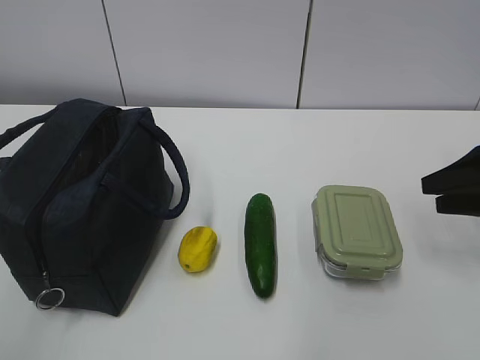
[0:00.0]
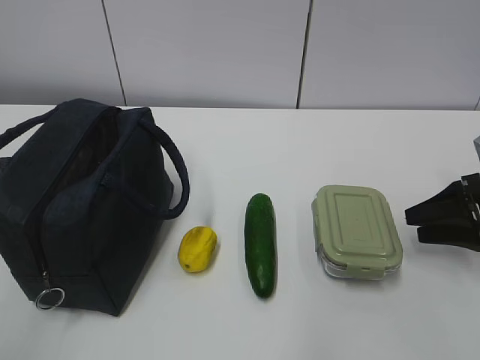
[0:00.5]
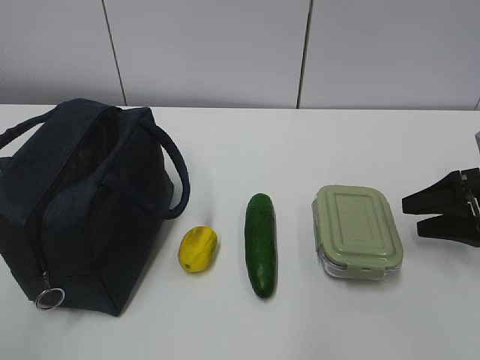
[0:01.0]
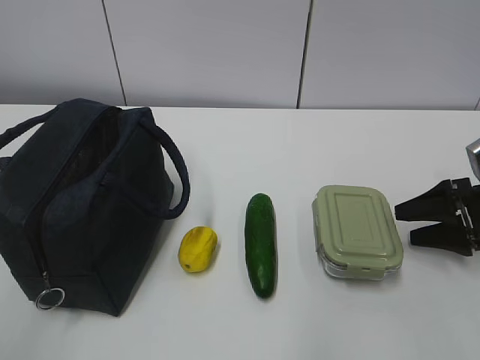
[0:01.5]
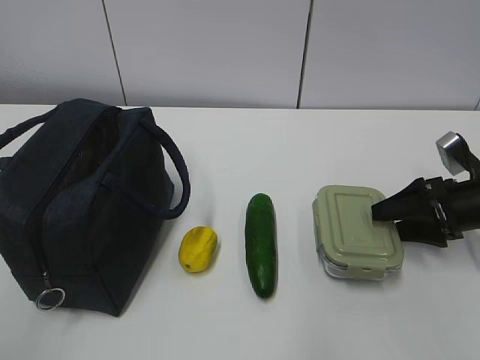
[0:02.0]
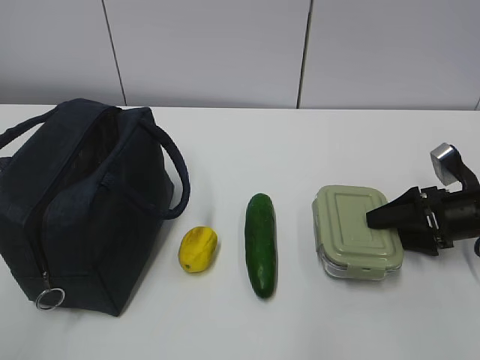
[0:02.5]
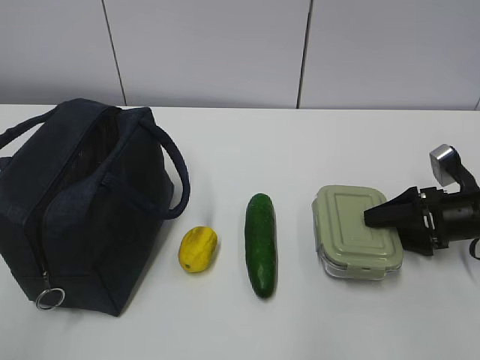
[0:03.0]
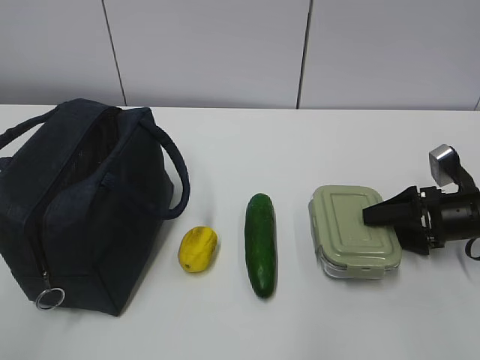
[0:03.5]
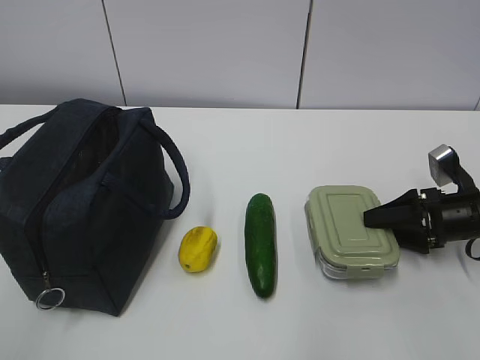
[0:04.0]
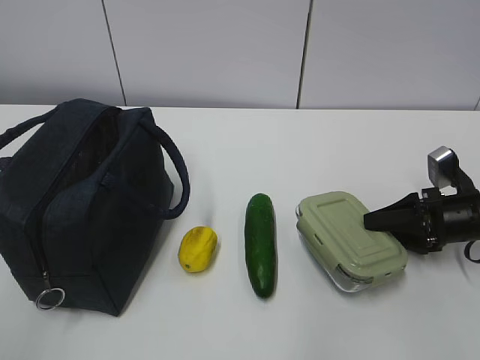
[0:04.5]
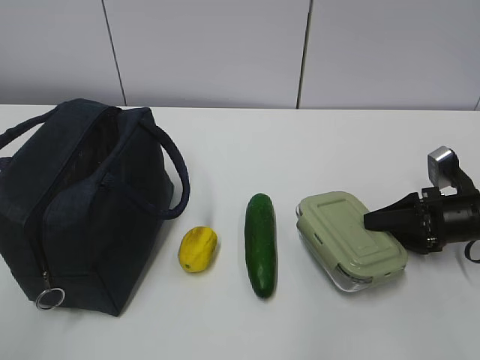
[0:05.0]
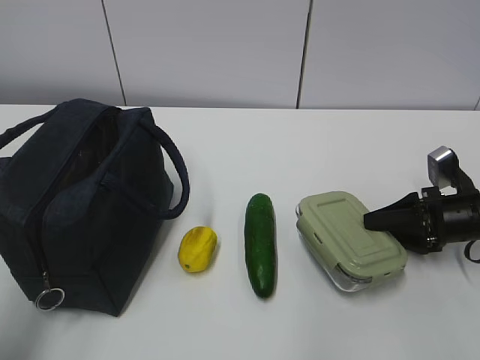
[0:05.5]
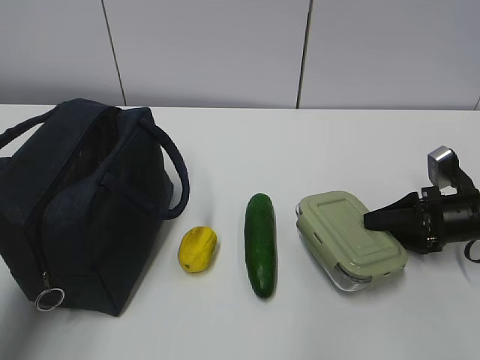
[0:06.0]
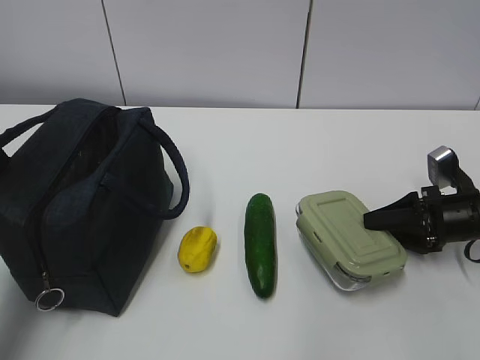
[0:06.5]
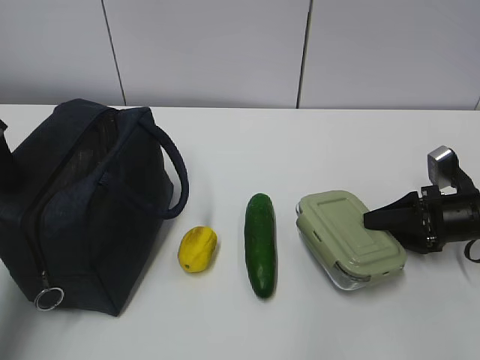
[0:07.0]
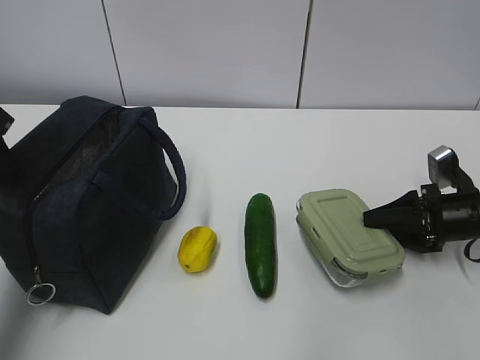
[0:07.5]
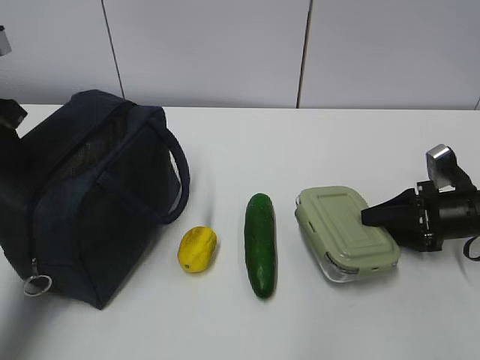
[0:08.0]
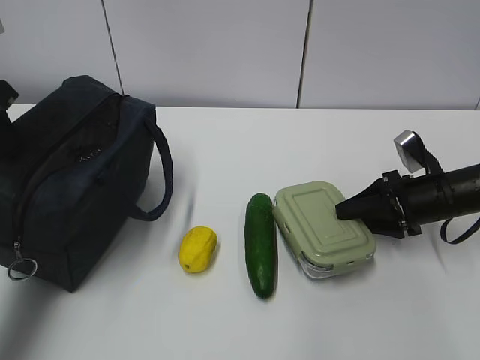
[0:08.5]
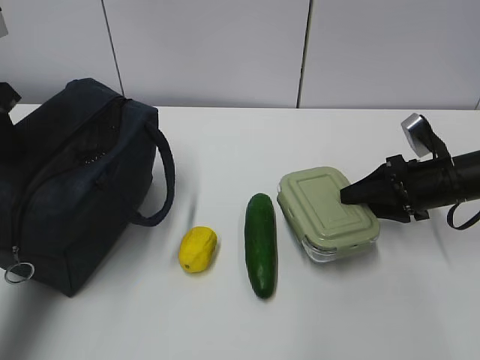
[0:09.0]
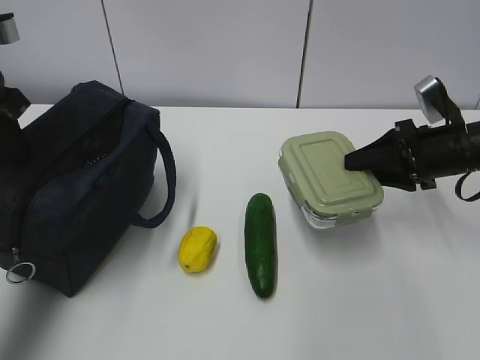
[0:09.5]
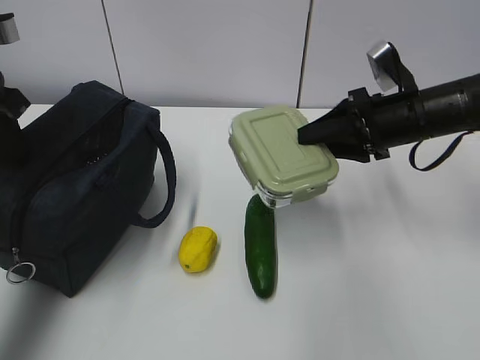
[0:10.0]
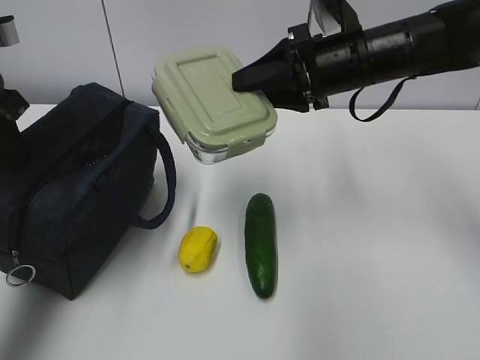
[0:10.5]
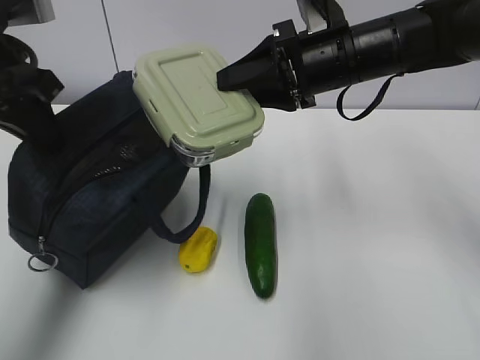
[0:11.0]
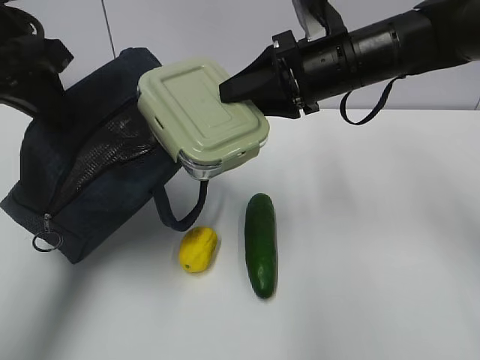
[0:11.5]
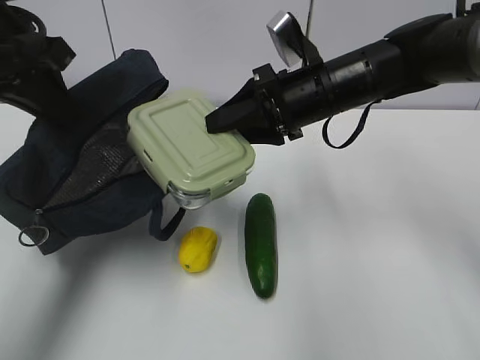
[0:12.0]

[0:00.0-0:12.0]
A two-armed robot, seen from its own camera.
Step, 0:00.0 to 0:06.0: Grab the lunch box with your right hand.
Step, 0:06.5 to 0:08.0: Grab the lunch bag with your left hand.
0:00.0 to 0:02.0: The right gripper heads downward, covering roughly 10 cm.
0:02.0 to 0:04.0: There are only small adjustments of the grippers.
0:04.0 to 0:06.0: The left gripper is displaced forward by about 20 cm.
0:06.0 to 0:08.0: The left gripper travels forward by some 10 cm, and closes.
0:08.0 to 0:10.0: The right gripper goes about 15 cm upward and to the left.
0:10.0 to 0:12.0: The right gripper moves to the left, some 10 cm. The left gripper moves to the right, some 5 cm.

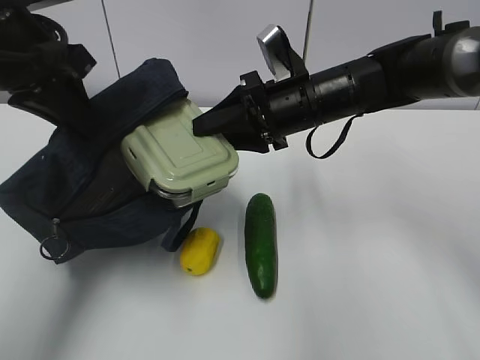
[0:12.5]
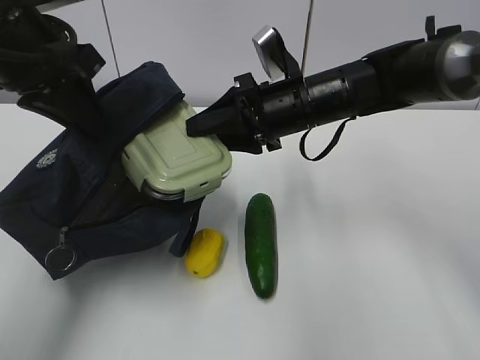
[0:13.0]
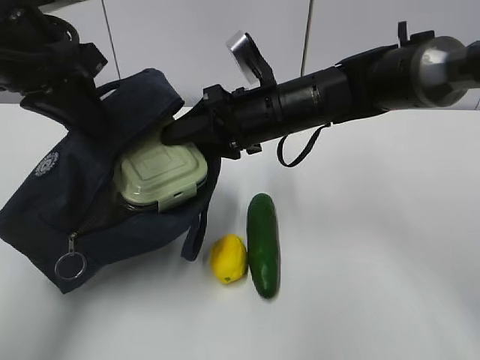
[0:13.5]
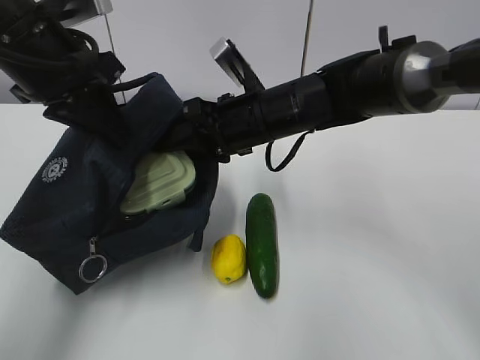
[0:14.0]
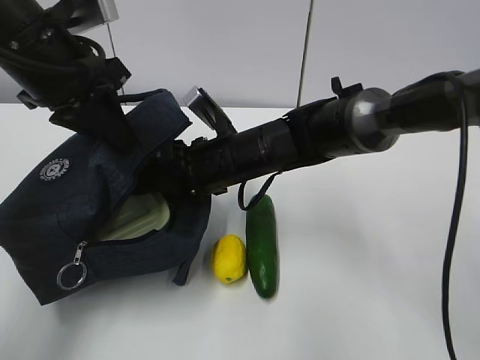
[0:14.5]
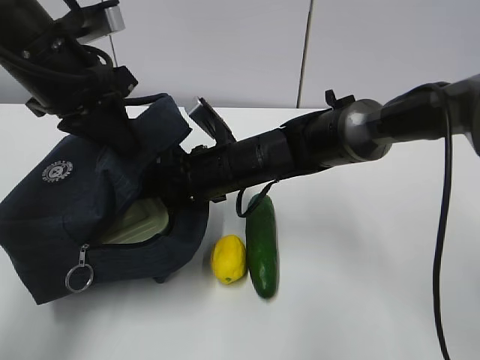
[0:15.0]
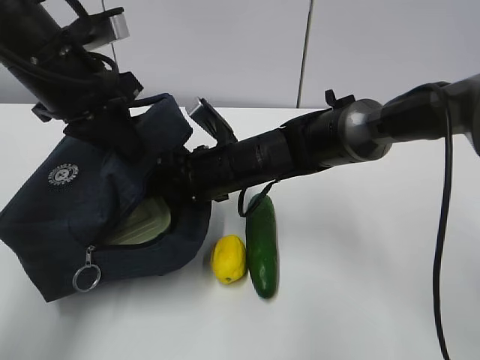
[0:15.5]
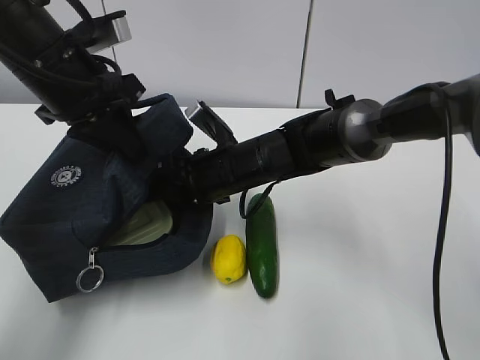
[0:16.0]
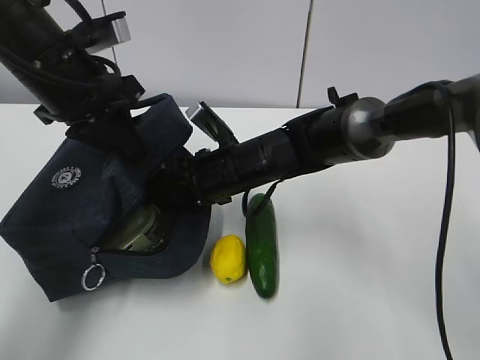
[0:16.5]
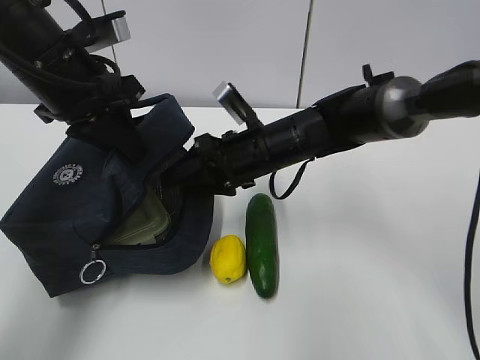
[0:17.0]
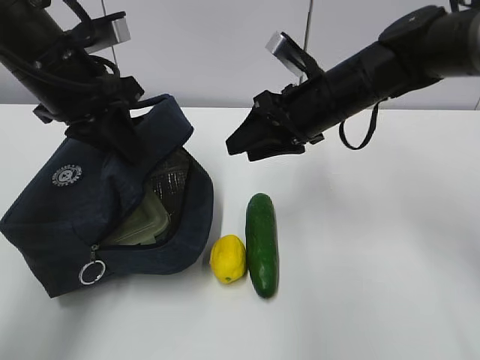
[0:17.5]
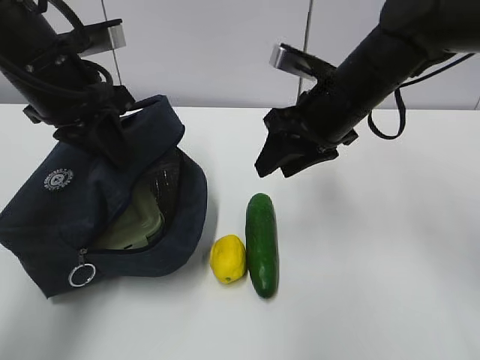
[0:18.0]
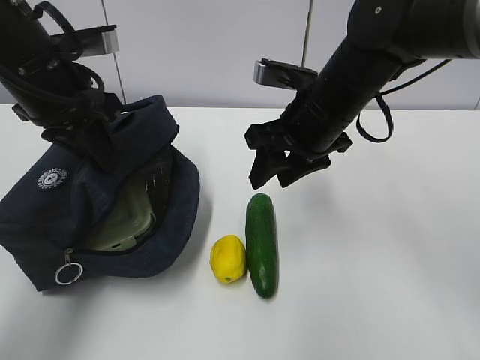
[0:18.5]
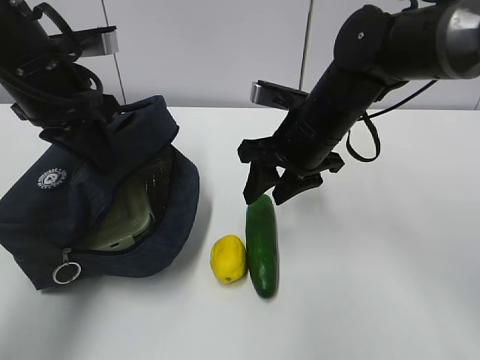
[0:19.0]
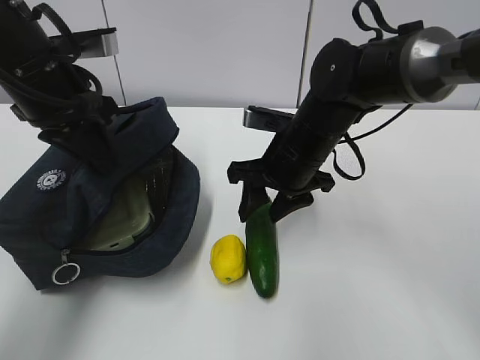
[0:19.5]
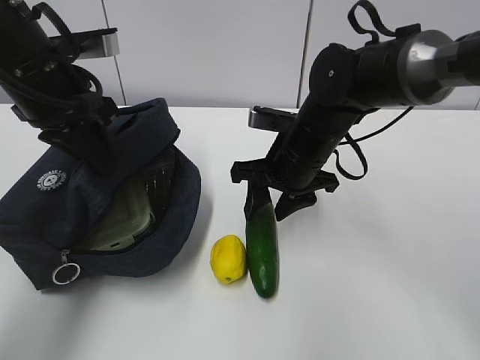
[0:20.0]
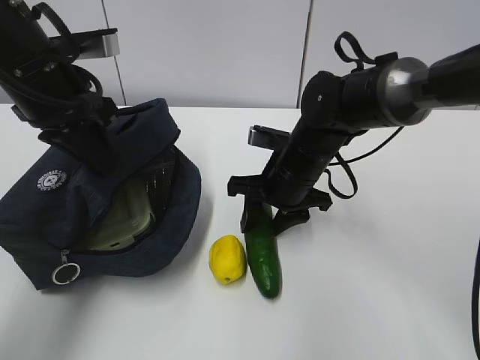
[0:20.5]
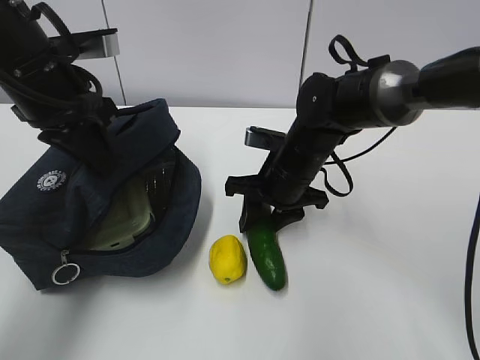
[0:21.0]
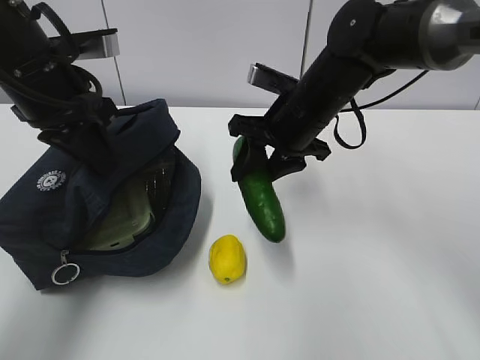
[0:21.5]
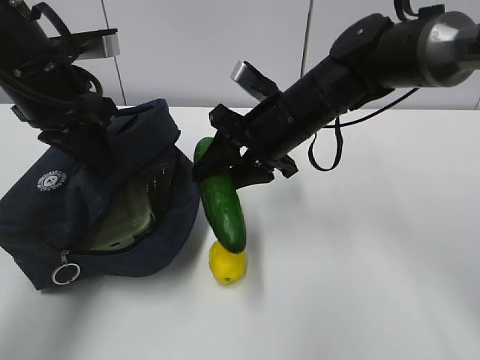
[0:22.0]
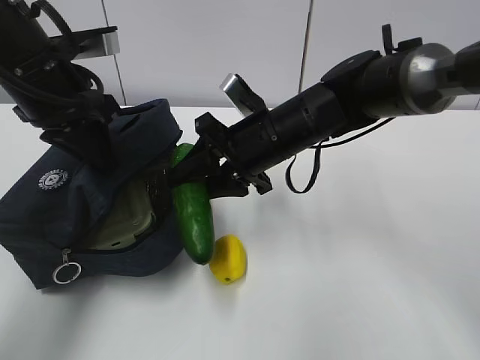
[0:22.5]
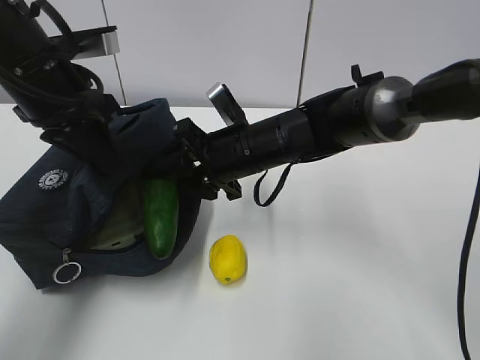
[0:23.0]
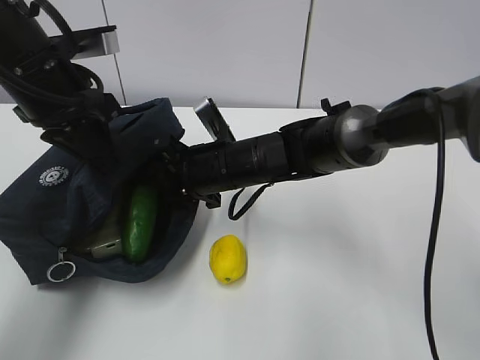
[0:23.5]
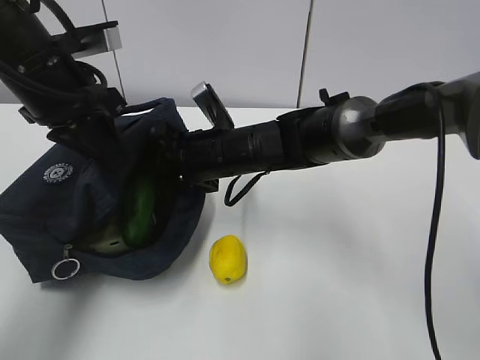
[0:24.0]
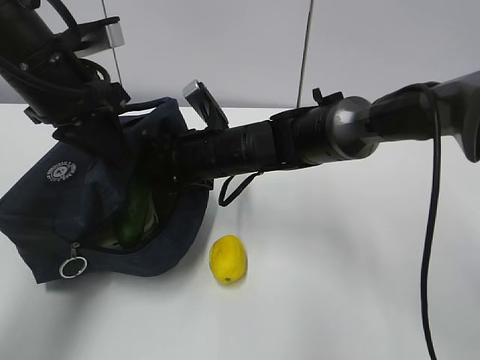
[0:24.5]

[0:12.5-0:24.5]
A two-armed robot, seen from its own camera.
Step, 0:13.5 to 0:16.5: Grab the cucumber with your right hand.
Step, 0:17.0 to 0:19.5: Place it into the bag with your right hand.
Step, 0:20.0 to 0:23.0: Grab the lemon with your right hand.
0:12.5 to 0:14.5: The right gripper travels to the left and downward by some 10 cm.
0:14.5 to 0:16.5: The grippers move only a little.
0:16.5 to 0:18.5: The right gripper goes roughly 15 cm to the right and upward.
0:18.5 to 0:20.5: The right gripper heads downward, covering roughly 10 cm.
0:20.5 to 0:22.5: The right gripper travels upward by roughly 5 cm.
0:22.5 to 0:24.5: The right gripper heads to the left, covering approximately 5 cm.

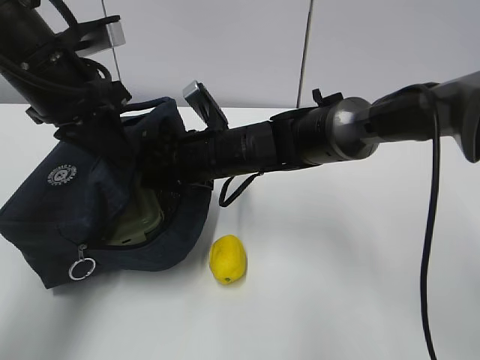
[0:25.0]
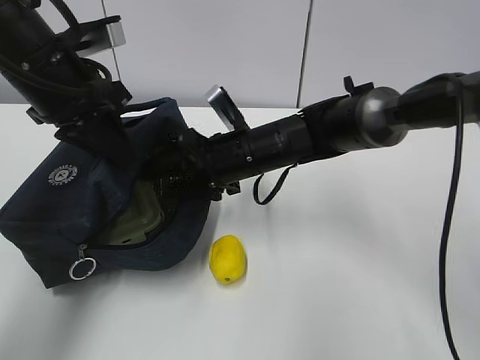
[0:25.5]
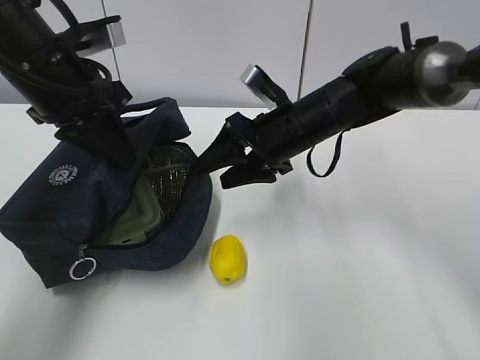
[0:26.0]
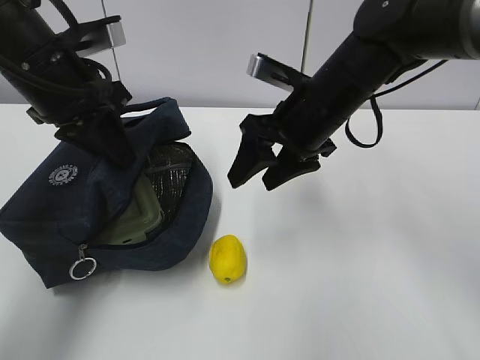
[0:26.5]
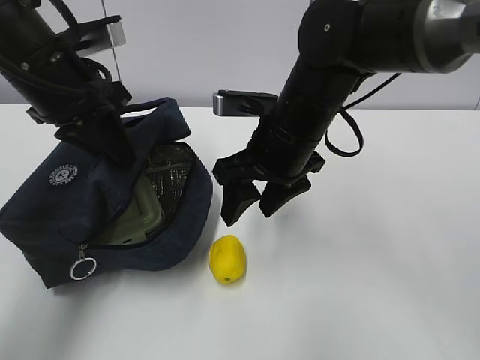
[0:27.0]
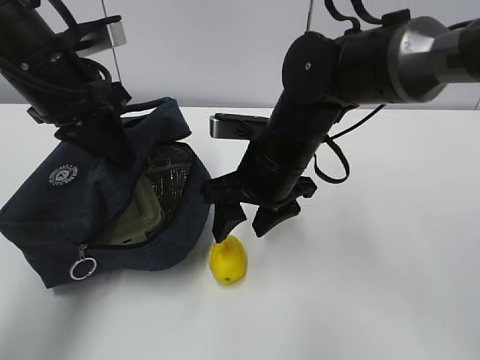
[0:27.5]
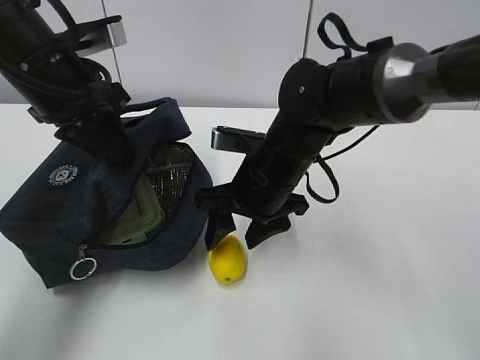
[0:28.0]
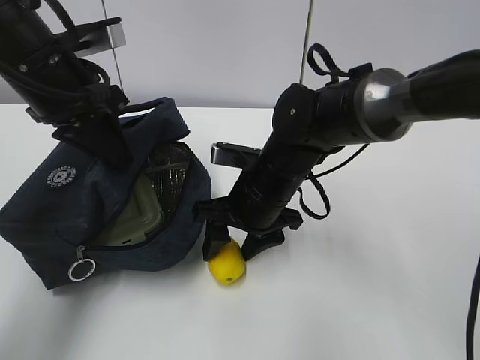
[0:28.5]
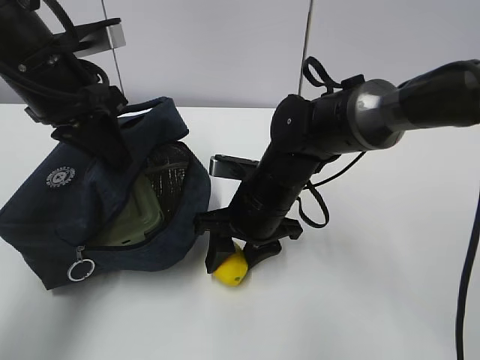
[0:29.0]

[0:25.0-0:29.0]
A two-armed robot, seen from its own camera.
Step, 0:25.5 to 0:27.5: Grab the lunch bag with your right hand.
0:25.0 to 0:27.0: The right gripper is displaced to the right, upward and backward by about 10 cm.
0:27.0 to 0:29.0: The right gripper goes some 10 cm downward.
